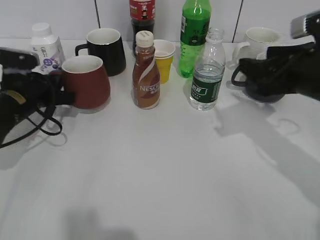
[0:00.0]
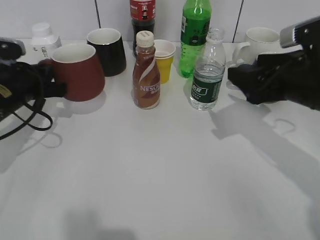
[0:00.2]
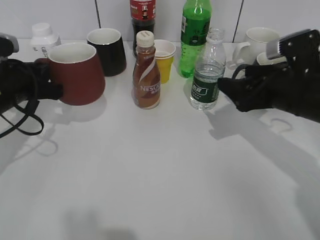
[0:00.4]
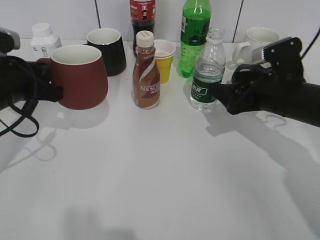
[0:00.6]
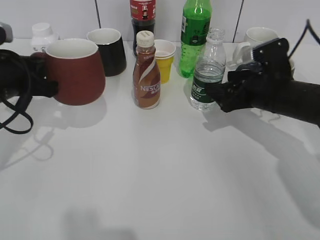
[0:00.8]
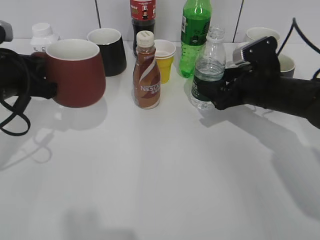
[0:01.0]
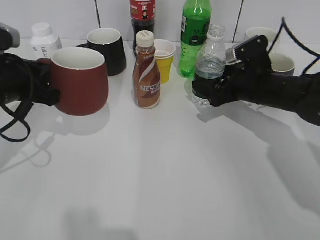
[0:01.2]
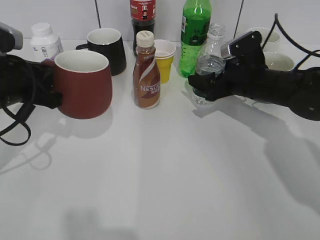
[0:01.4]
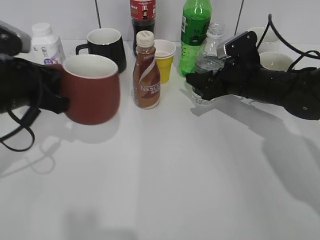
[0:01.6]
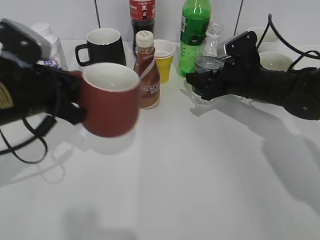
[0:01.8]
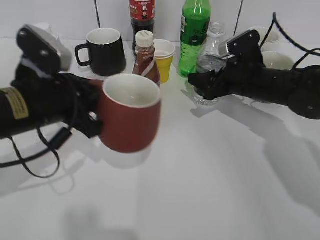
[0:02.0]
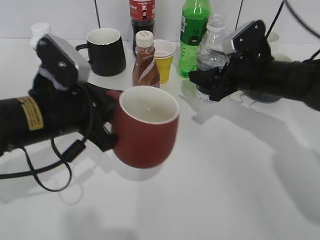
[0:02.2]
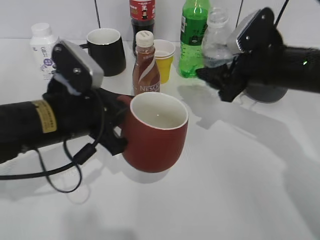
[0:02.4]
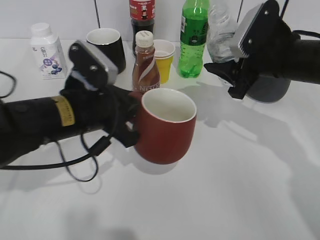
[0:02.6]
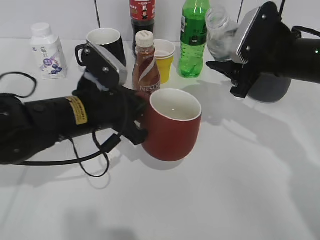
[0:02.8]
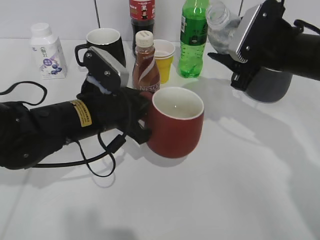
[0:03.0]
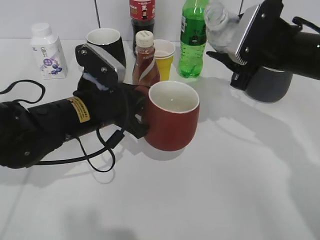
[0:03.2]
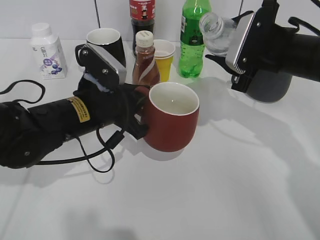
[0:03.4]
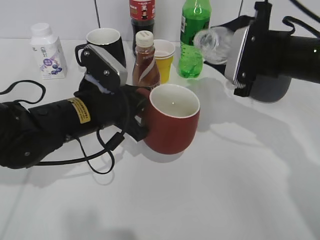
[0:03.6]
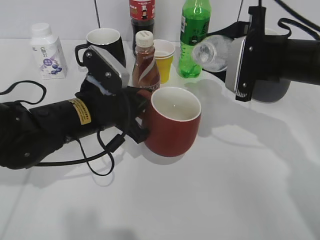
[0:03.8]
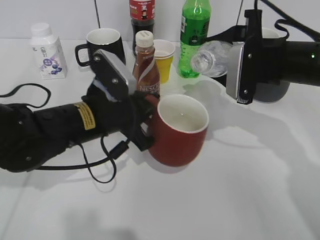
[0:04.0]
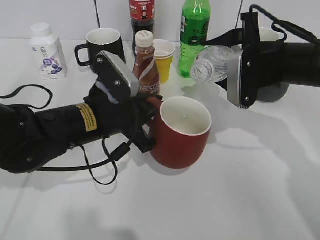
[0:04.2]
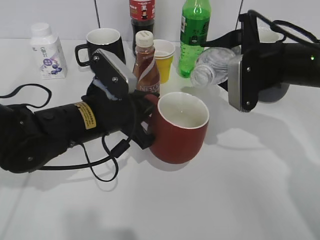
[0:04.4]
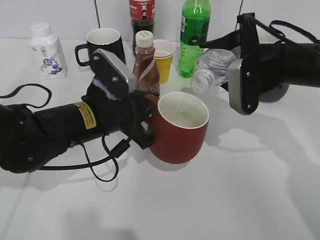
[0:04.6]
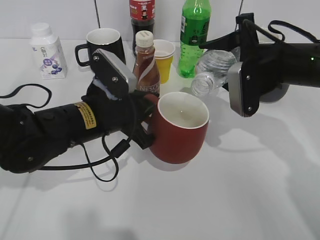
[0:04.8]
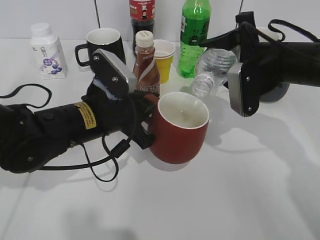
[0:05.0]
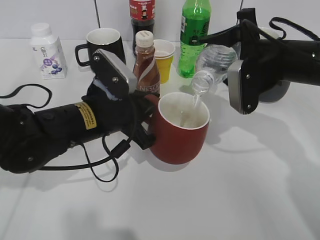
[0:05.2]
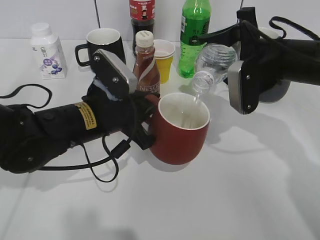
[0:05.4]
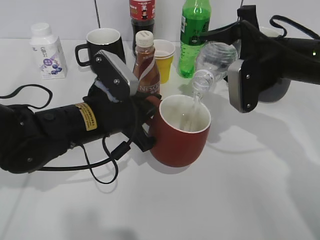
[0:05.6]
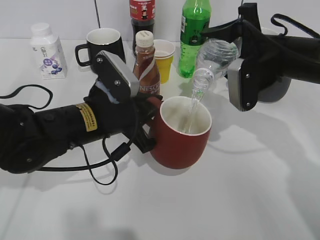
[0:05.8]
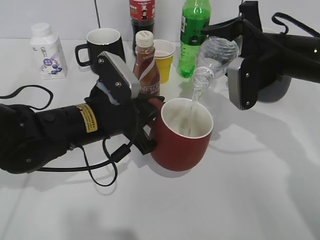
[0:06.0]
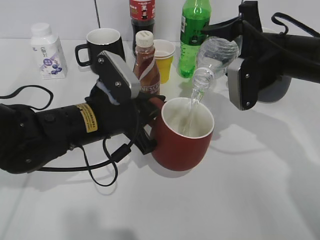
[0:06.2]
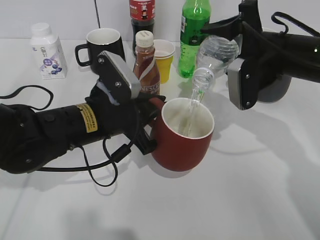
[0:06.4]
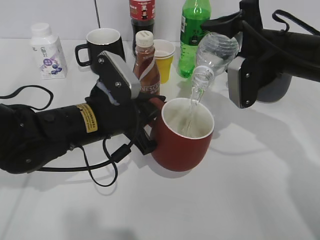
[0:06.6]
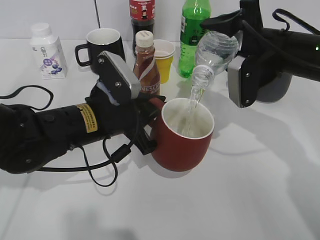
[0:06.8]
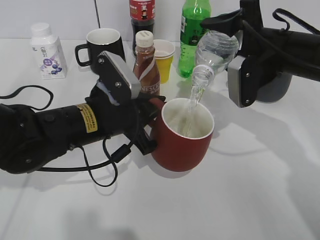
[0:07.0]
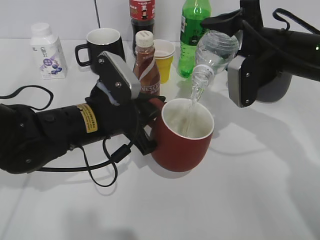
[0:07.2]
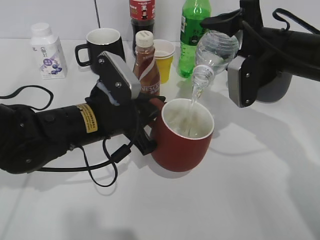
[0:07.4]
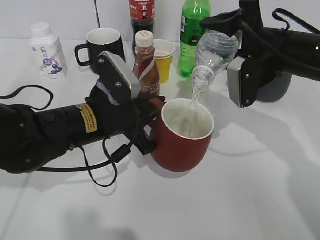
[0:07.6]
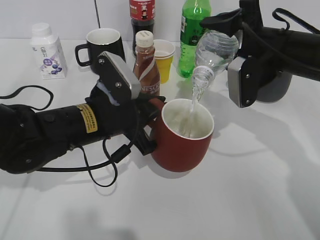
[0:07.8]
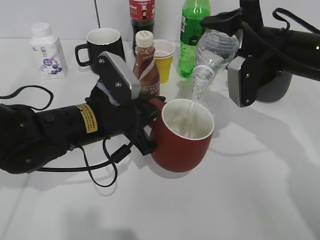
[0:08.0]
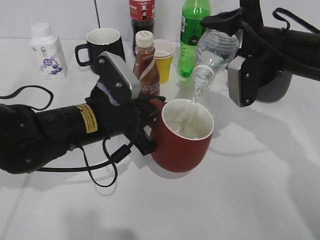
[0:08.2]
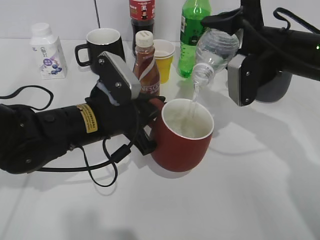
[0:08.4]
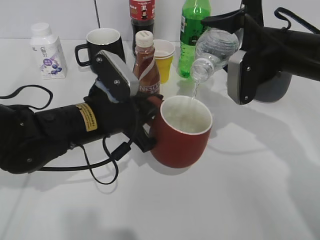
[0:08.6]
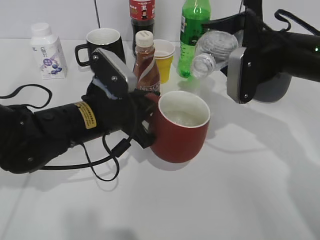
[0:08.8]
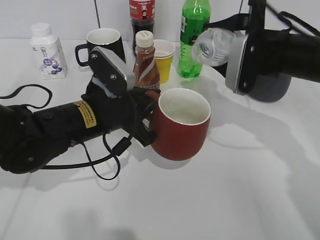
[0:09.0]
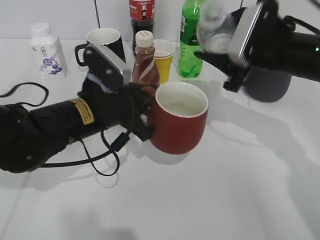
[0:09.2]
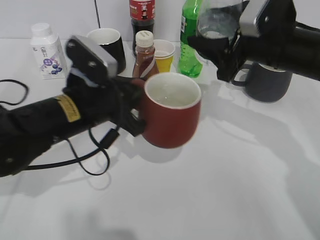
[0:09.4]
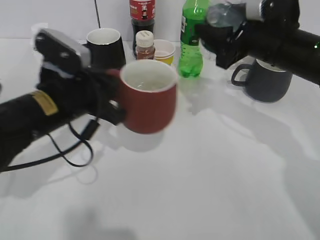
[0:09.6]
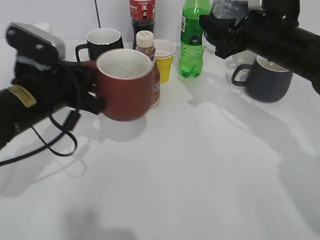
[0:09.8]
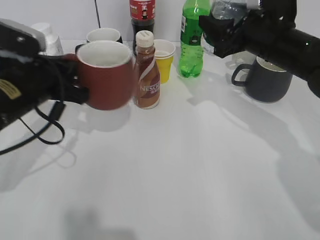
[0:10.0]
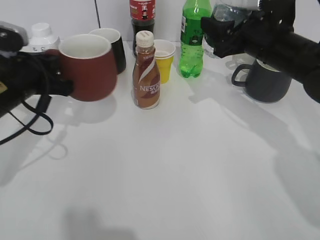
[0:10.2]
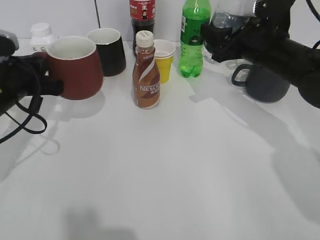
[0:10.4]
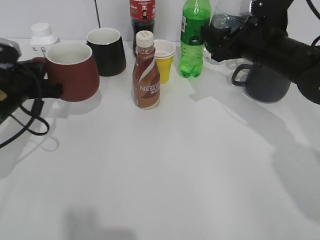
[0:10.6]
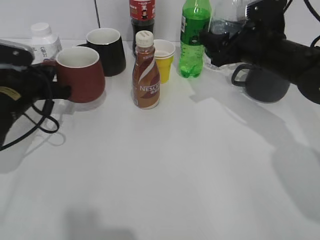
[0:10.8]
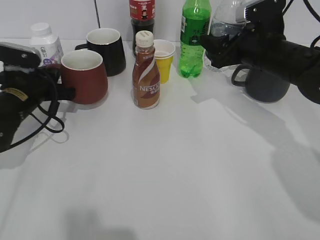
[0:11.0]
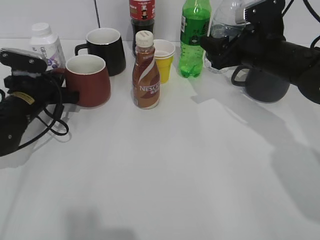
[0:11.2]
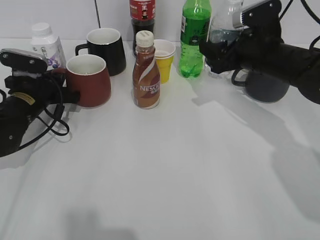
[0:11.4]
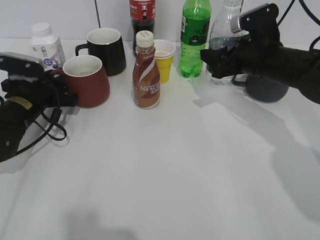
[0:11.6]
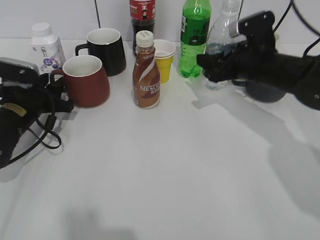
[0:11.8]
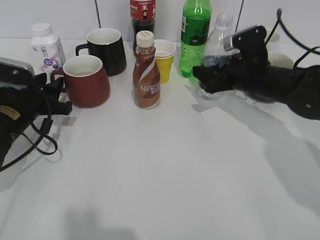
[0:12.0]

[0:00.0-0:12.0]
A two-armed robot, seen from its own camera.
Step, 0.0 to 0.4 s: Lift the red cup with left gripper.
Step, 0.8 to 1.2 s: Grasp the bottle with water with right gripper.
Step, 1.6 to 8.8 s: Pour the water from bottle to cup with right gripper.
Step, 9.0 to 11.6 s: Place the red cup on the table with left gripper.
0.0 to 1.6 s: The left gripper heads upward and backward, covering roughly 10 cm; the right gripper heads forward, downward and to the left, covering about 15 cm, and opens and closes again.
1.6 to 3.0 s: The left gripper goes approximately 10 cm to the right, while the right gripper moves upward, about 10 cm.
4.4 to 6.0 s: The grippers move only a little.
6.0 to 7.6 s: The grippers make only small movements.
9.0 to 10.4 s: The left gripper shifts about 15 cm to the left.
10.4 to 12.0 s: Both grippers move downward, about 5 cm. The left gripper opens up.

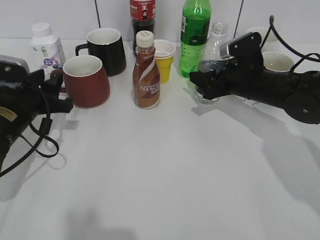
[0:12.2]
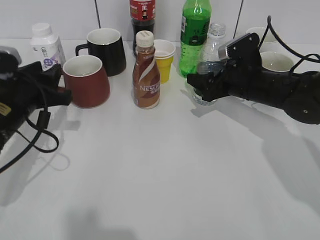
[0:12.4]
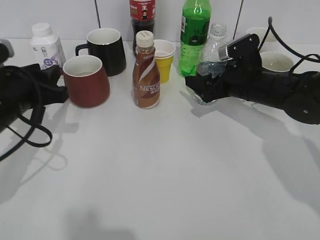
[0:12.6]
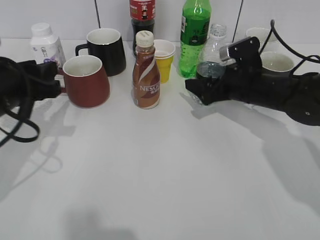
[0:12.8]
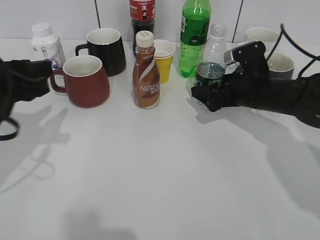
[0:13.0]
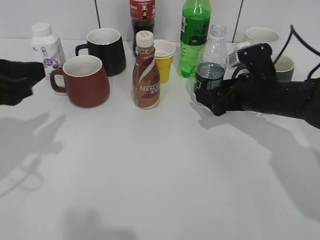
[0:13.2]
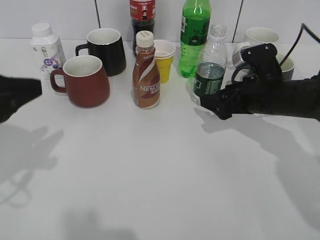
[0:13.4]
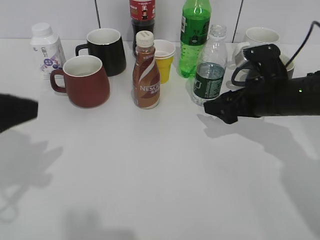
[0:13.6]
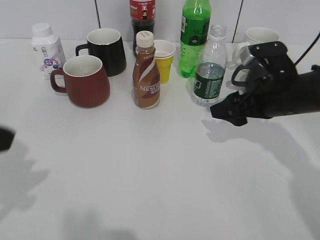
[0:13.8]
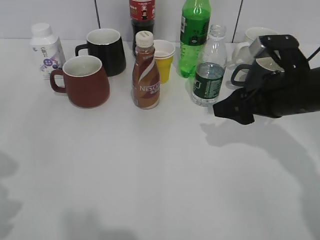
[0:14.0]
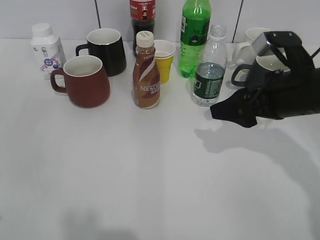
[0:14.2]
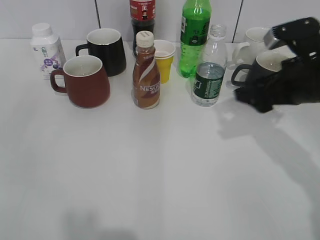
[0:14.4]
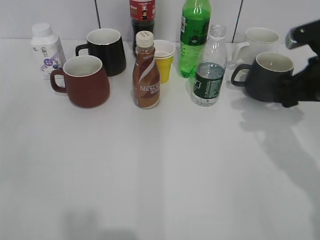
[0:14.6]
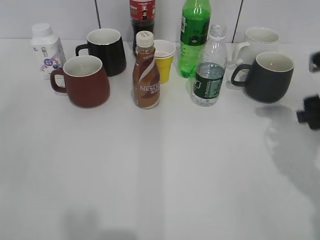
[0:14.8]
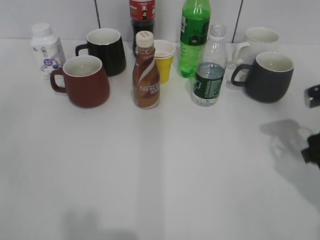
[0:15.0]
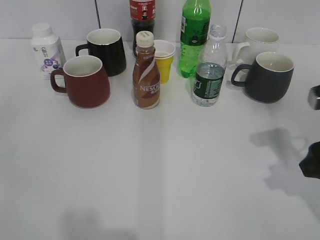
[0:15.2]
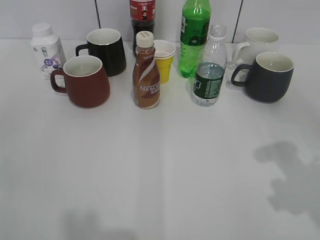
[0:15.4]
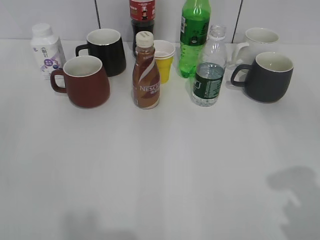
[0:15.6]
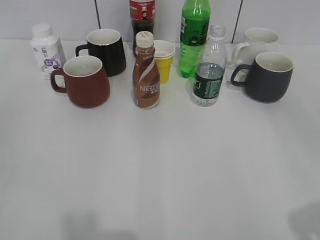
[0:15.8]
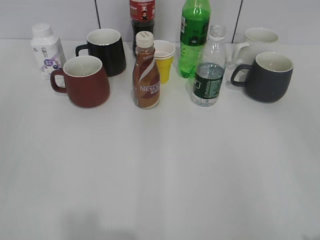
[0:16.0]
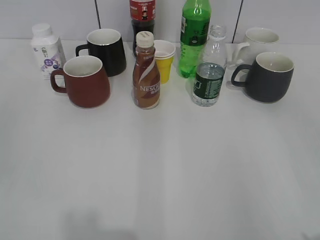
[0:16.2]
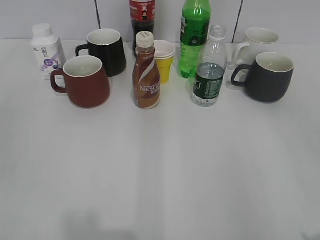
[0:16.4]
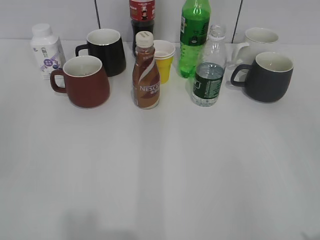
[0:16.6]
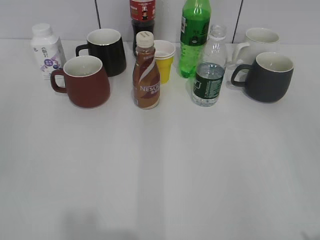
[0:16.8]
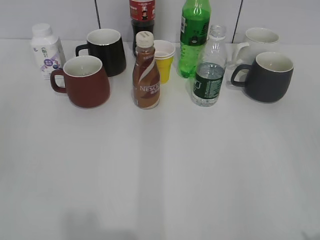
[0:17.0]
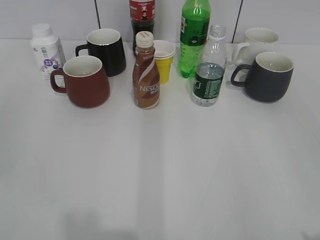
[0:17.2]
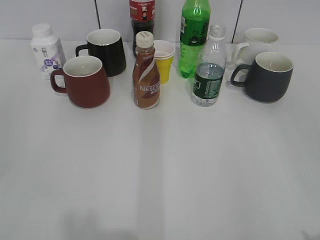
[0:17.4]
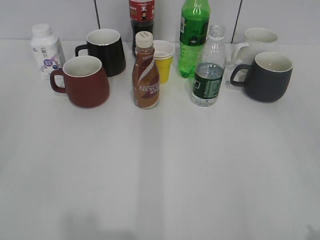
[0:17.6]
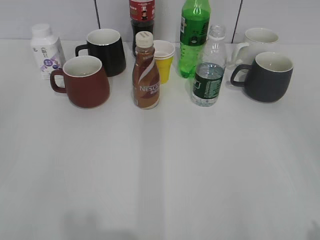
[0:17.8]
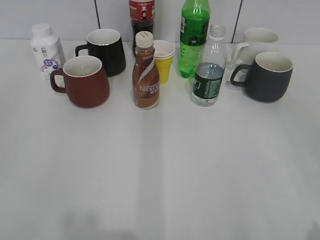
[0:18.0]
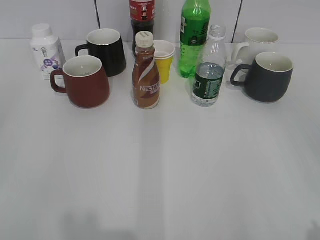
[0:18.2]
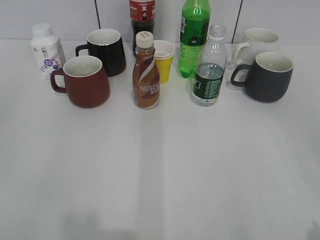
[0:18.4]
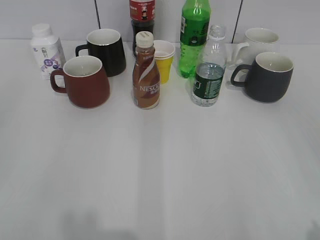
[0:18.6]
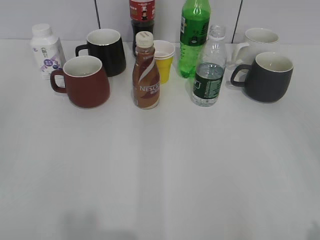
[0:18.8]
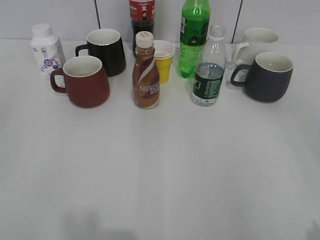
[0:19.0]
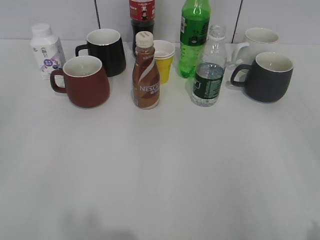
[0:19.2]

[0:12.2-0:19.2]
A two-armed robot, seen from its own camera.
Step, 12.2 to 13.2 s: Place the water bottle on the table with right gripper.
12.2 to 13.6 s: The right gripper travels backward by about 5 cm, and opens its fingers. Meanwhile the left gripper moves upward and backward, approximately 20 cm.
13.6 to 15.0 s: The left gripper shifts roughly 15 cm backward and to the left, while the right gripper is displaced to the right and backward by some 10 cm, and closes.
15.0 to 16.4 s: The right gripper goes some 25 cm backward and upward.

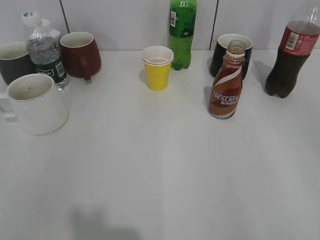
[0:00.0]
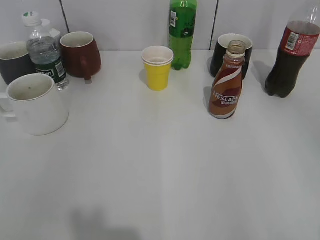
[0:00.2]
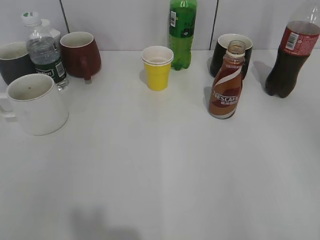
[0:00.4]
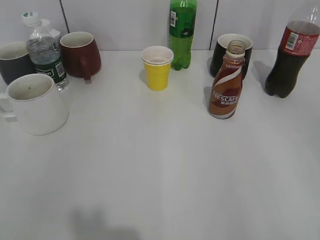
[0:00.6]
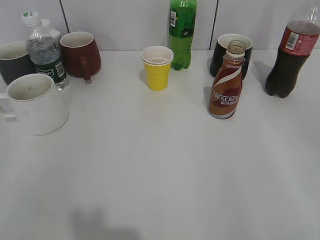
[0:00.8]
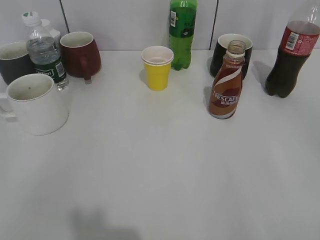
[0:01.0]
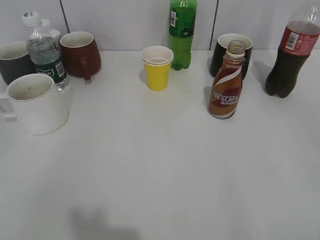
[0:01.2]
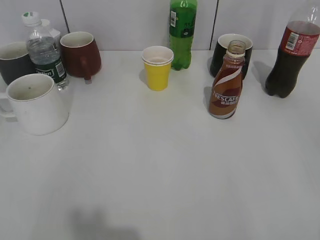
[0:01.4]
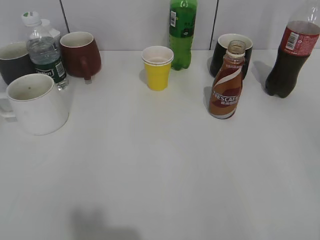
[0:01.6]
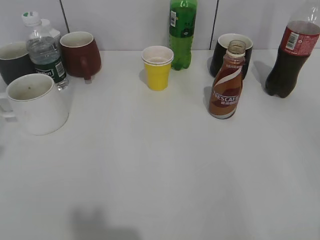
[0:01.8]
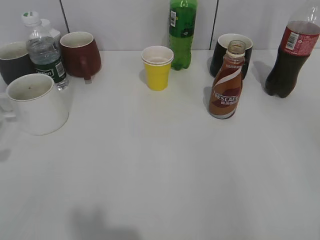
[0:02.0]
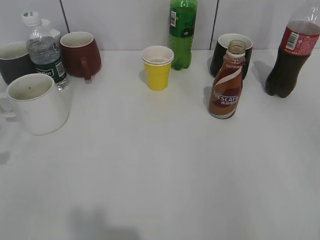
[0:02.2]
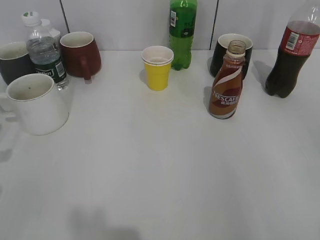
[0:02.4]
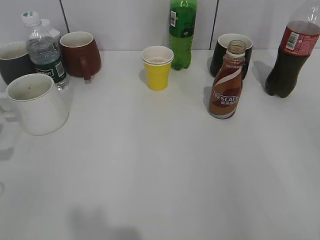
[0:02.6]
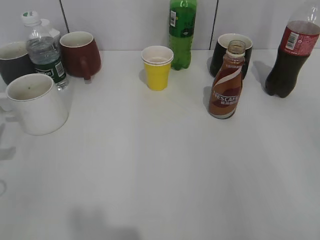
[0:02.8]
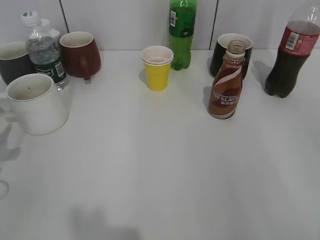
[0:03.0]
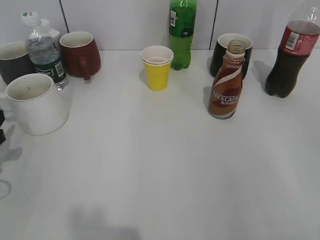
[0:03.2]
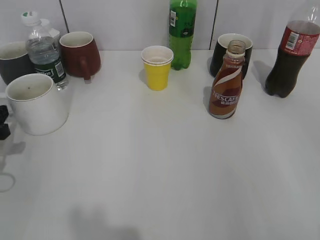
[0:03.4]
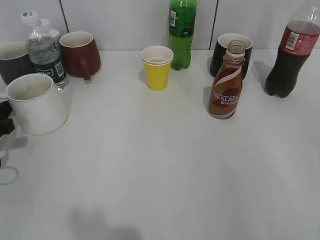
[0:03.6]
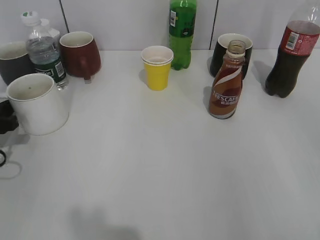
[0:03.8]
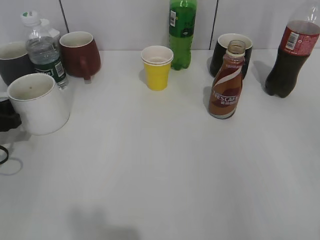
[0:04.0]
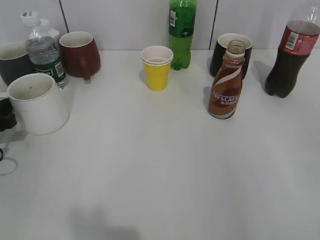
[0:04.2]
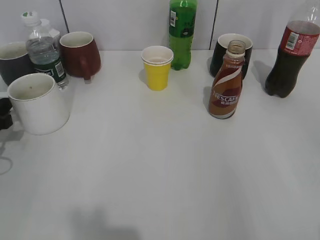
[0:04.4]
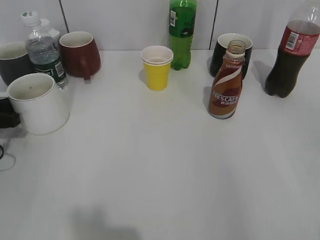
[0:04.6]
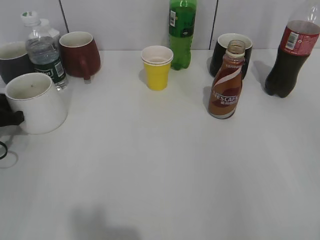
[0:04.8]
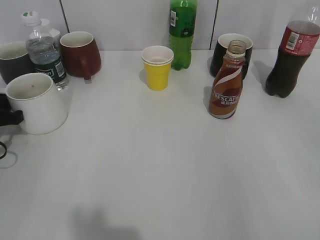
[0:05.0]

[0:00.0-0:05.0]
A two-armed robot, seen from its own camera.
1.6 to 3.4 s: The left gripper travels downward and forward by some 20 cm.
3.4 to 5.0 s: The left gripper travels forward by some 5 cm, and closes.
